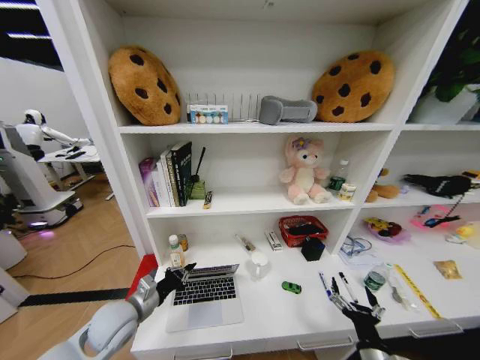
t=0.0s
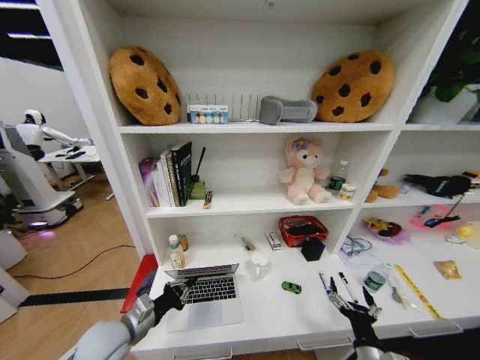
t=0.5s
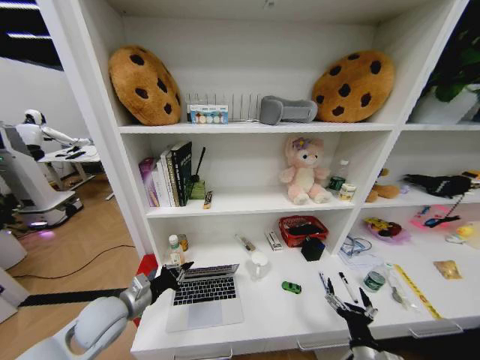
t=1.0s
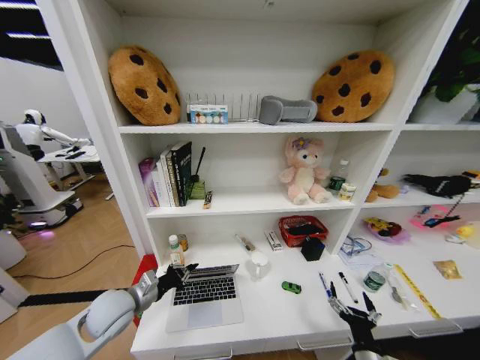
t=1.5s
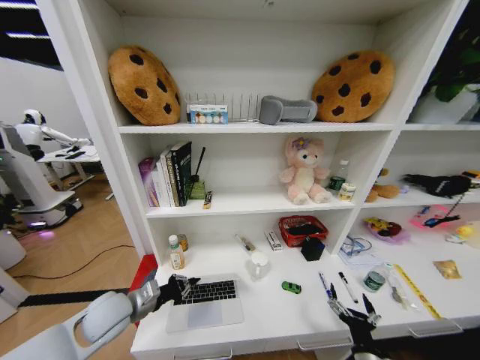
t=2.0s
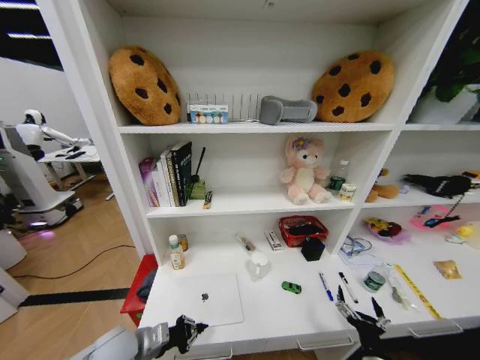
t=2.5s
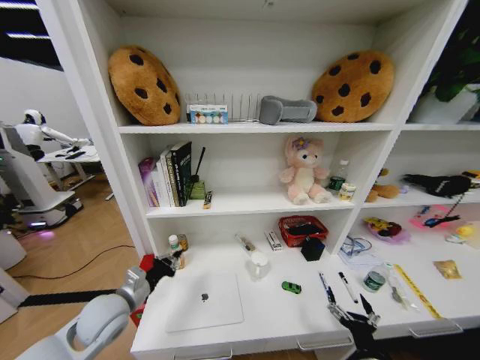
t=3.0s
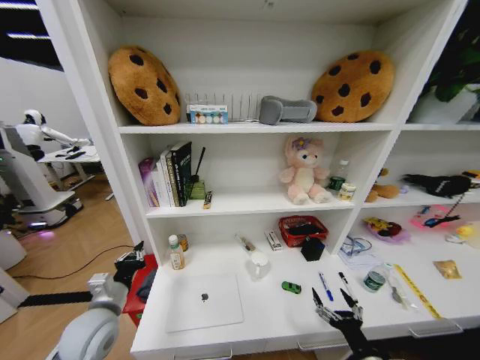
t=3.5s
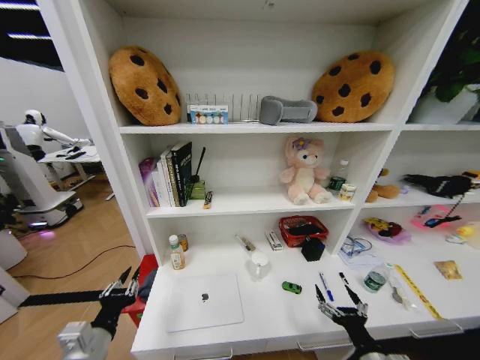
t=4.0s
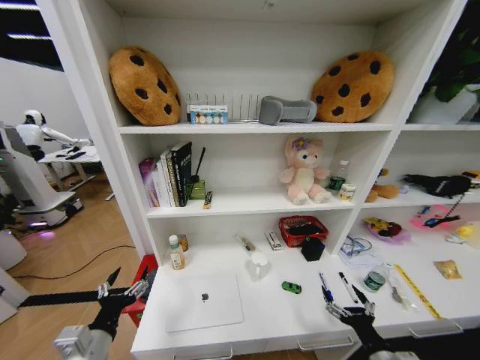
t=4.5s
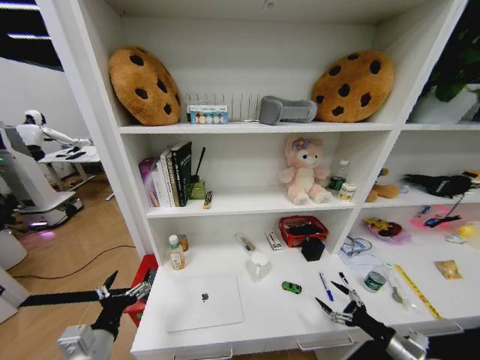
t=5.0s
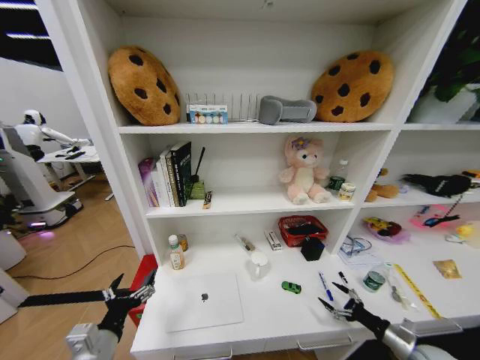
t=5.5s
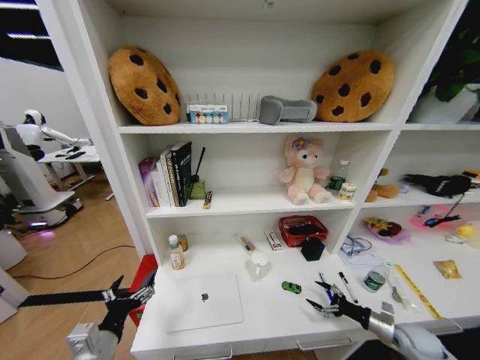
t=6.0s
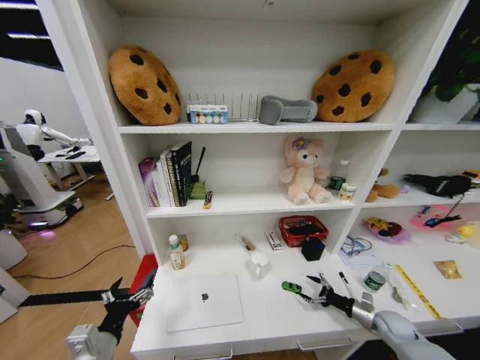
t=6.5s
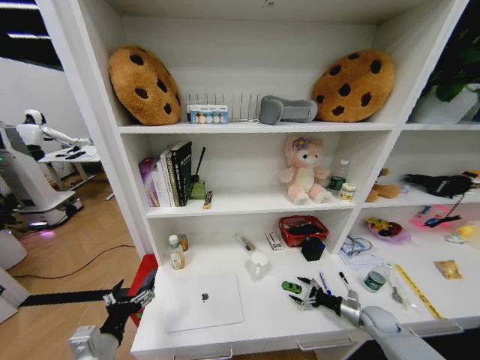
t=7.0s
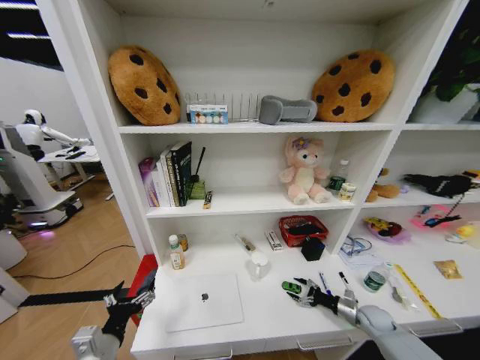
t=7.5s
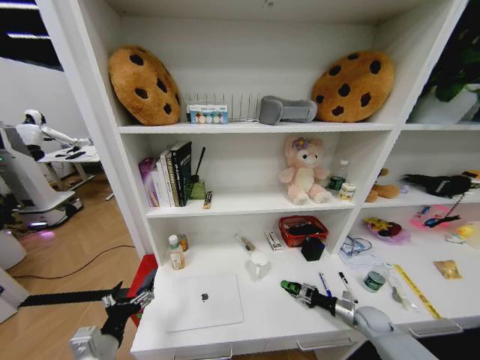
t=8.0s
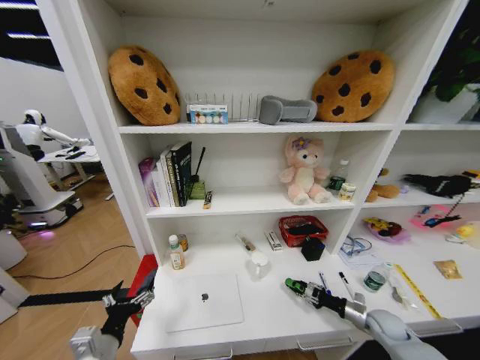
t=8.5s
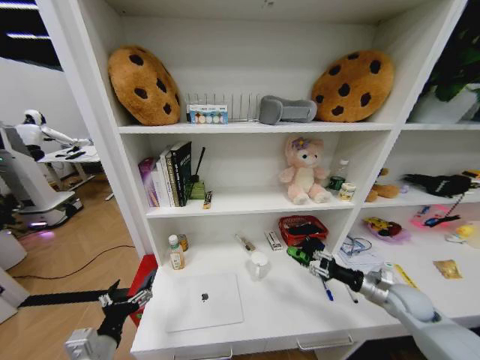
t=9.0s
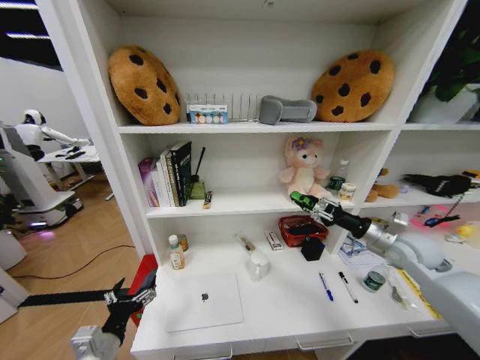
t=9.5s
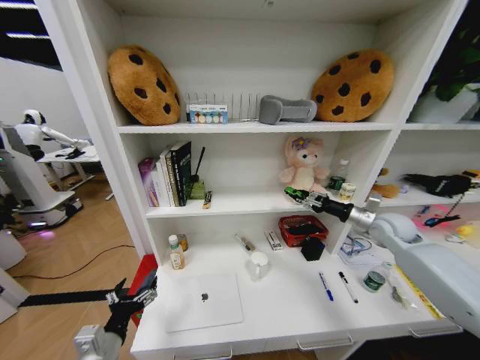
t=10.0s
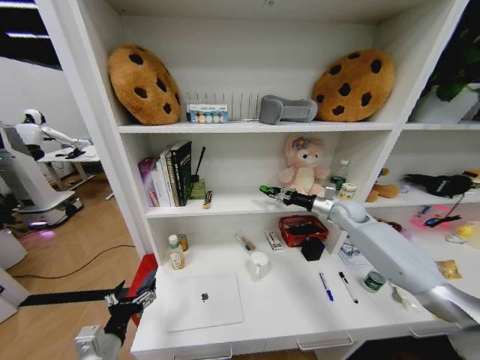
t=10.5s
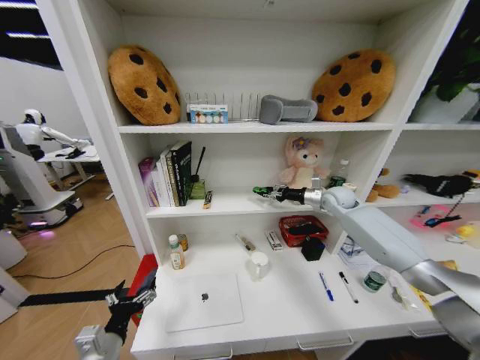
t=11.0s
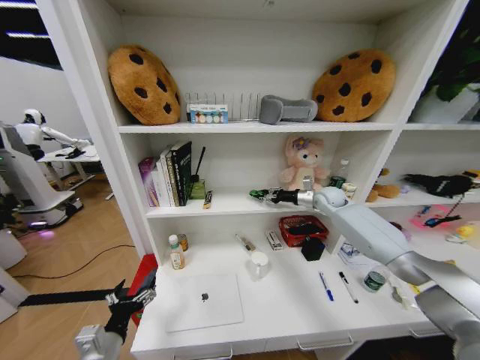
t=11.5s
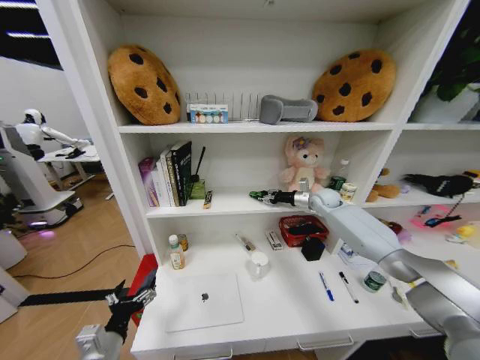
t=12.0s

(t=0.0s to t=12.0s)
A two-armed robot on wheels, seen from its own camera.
Task of the whole recording: Organize the objects on the table.
t=2.0s - t=4.0s: The left gripper moves forward and backward over approximately 10 cm, changing direction 2 times.
t=4.0s - t=6.0s: The right gripper heads to the right and forward, covering approximately 25 cm; the left gripper opens its fingers.
t=6.0s - t=8.0s: The right gripper travels forward, to the left and downward by about 10 cm, and closes.
t=8.0s - t=10.0s: The right gripper moves upward and forward, about 35 cm.
t=10.0s - t=12.0s: The right gripper is displaced forward and to the left by roughly 20 cm.

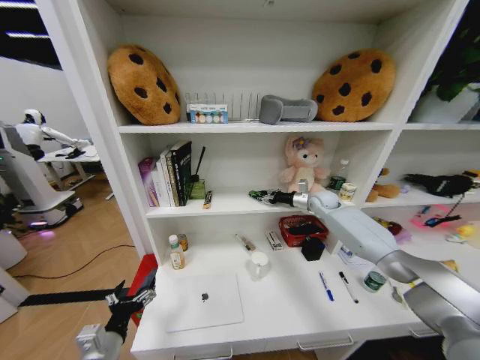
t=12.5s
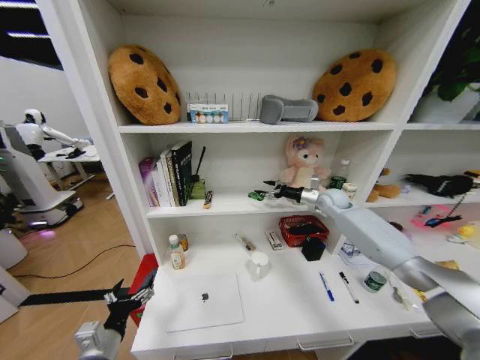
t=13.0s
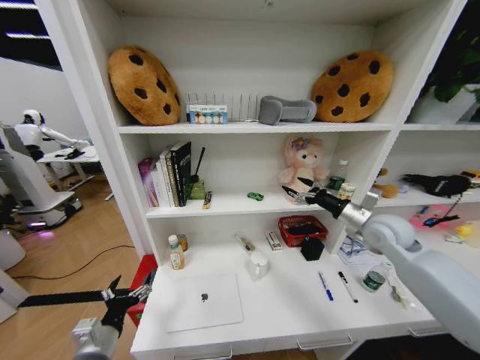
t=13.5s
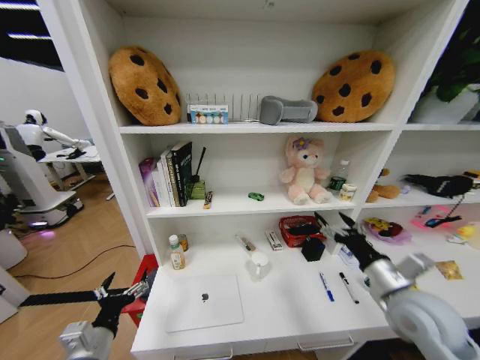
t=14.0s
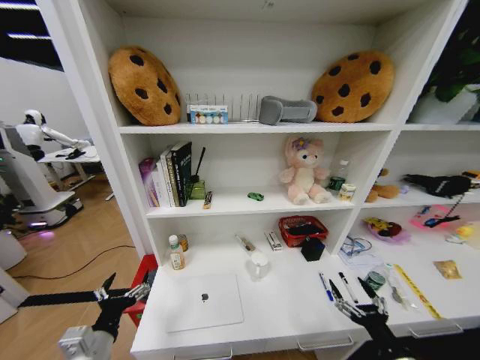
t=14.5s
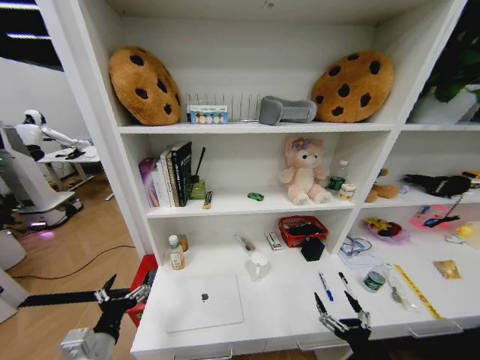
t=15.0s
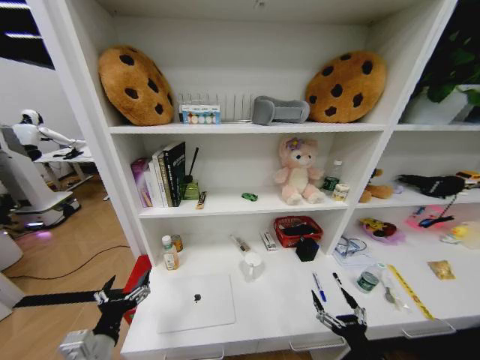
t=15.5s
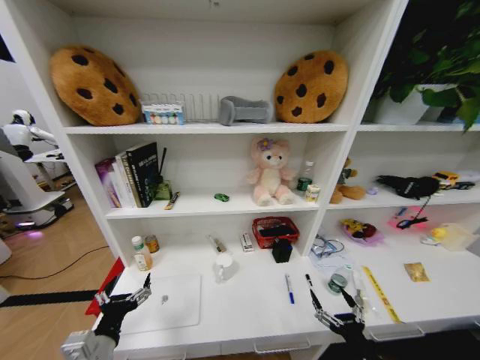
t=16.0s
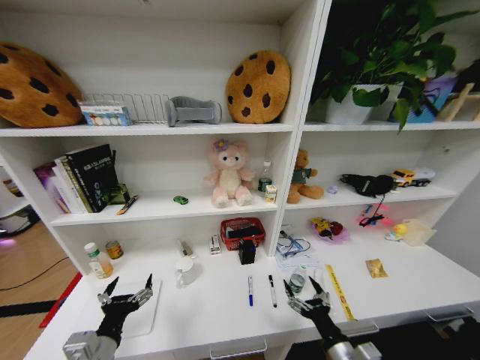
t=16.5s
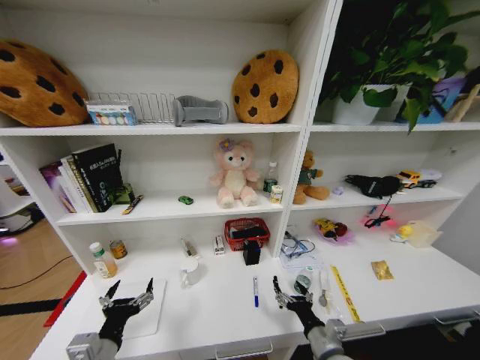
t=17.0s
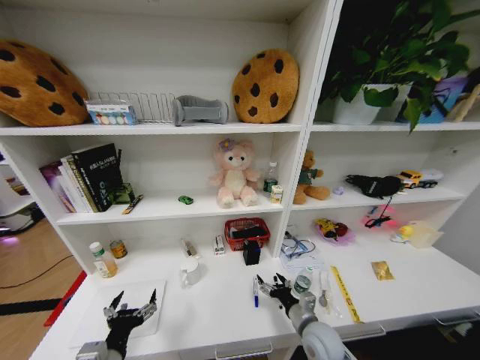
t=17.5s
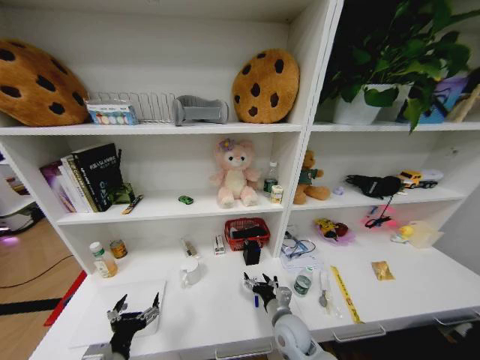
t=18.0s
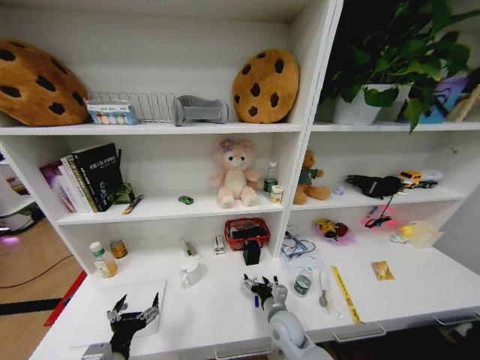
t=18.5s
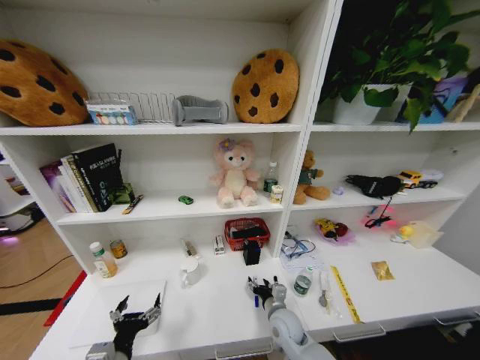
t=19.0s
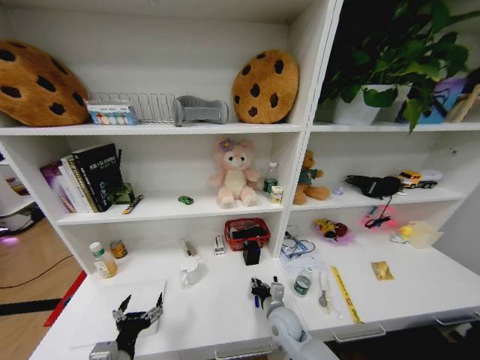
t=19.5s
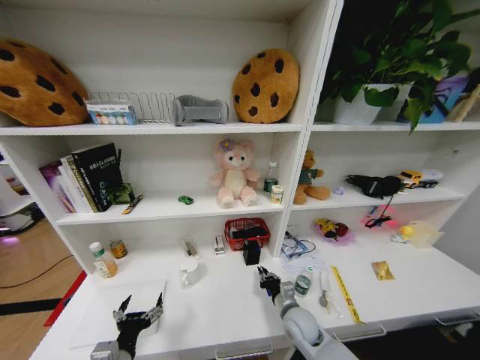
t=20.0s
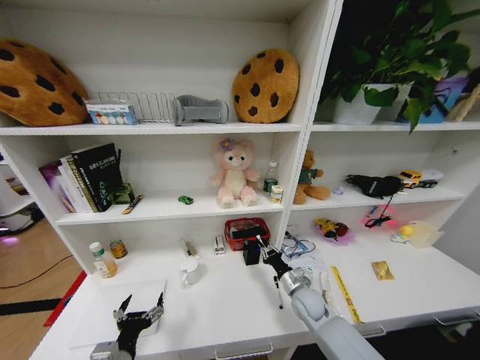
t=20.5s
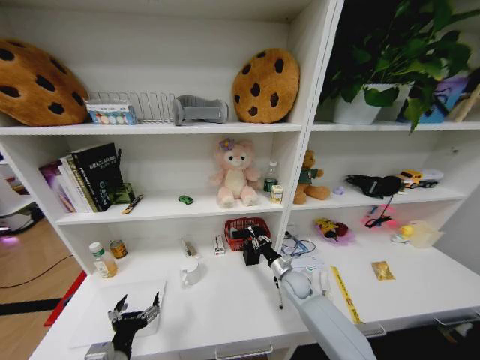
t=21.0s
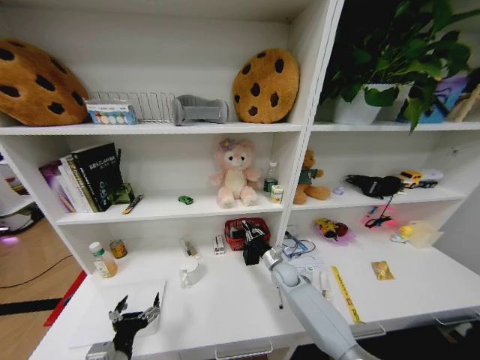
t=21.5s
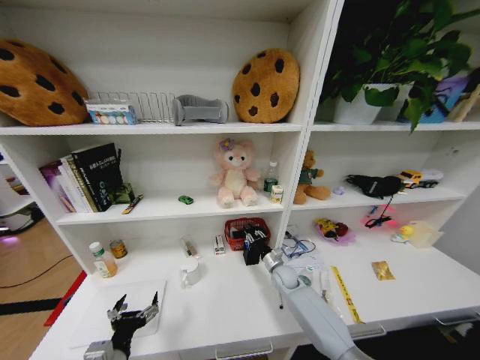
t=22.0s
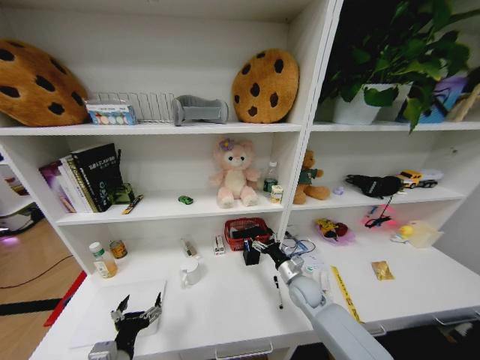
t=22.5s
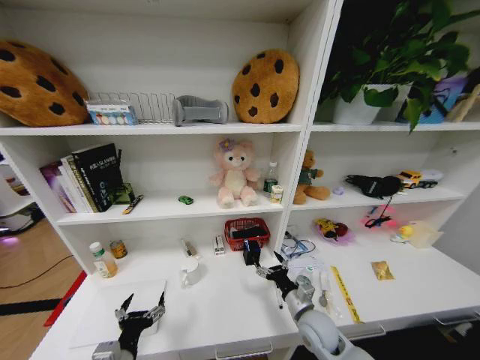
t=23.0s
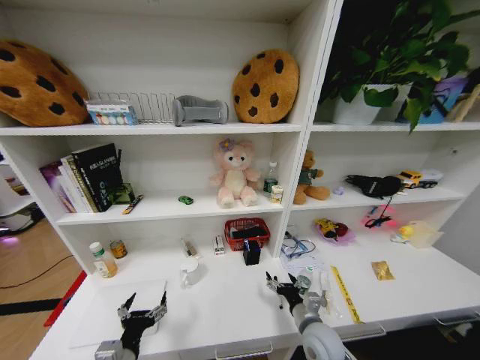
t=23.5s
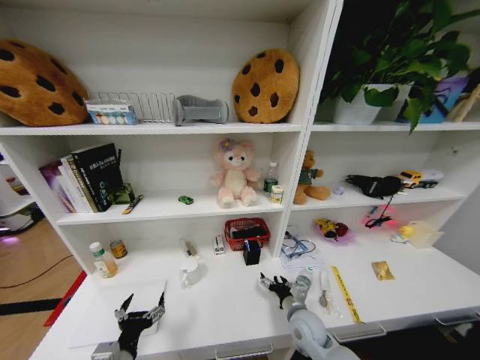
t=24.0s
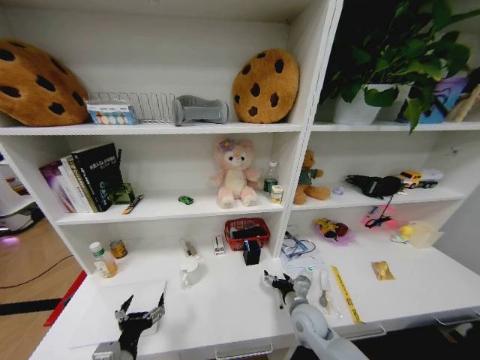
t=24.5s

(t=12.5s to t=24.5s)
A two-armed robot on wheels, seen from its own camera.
Task of the whole recording: Organize the objects on the table.
t=12.5s - t=14.5s: The right gripper moves backward, some 50 cm, and opens up.
t=14.5s - t=16.5s: The right gripper heads to the left, covering some 10 cm.
t=16.5s - t=18.5s: The right gripper goes some 20 cm forward, to the left and downward.
t=18.5s - t=20.5s: The right gripper moves to the right and forward, some 10 cm, and closes up.
t=20.5s - t=22.5s: The right gripper travels forward and back again, approximately 10 cm each way, and opens up.
t=22.5s - t=24.5s: The right gripper heads backward, covering approximately 10 cm.

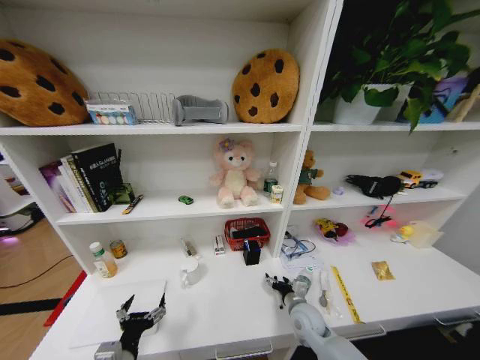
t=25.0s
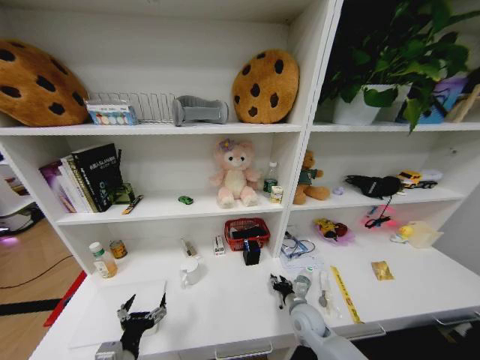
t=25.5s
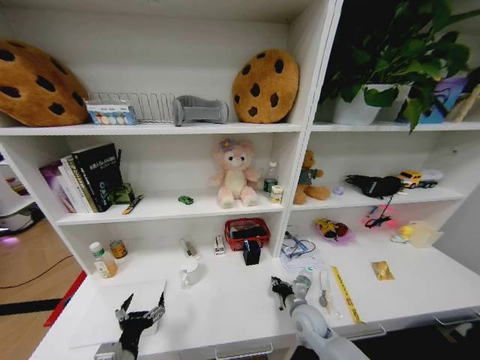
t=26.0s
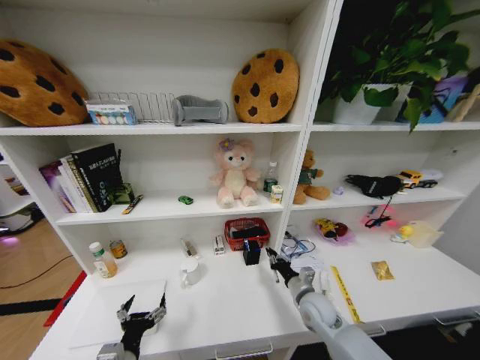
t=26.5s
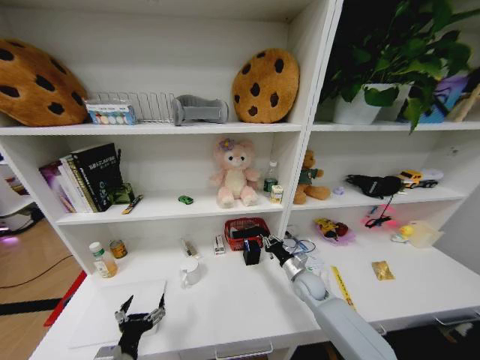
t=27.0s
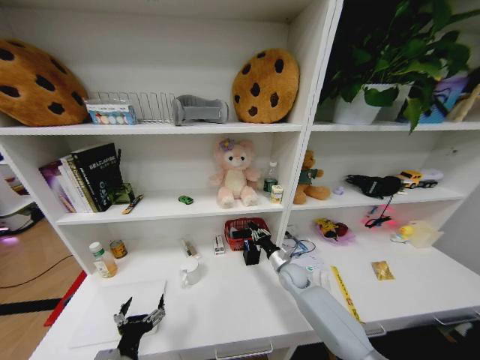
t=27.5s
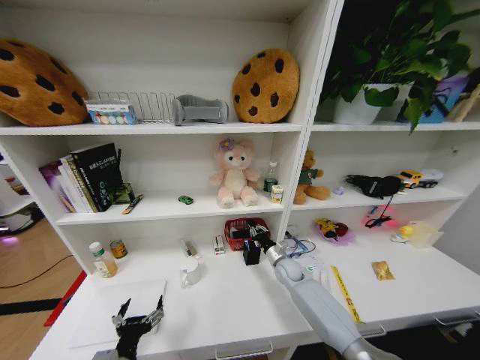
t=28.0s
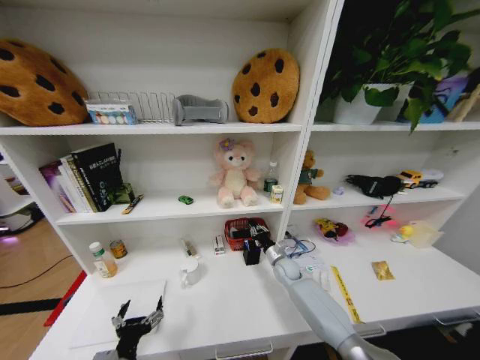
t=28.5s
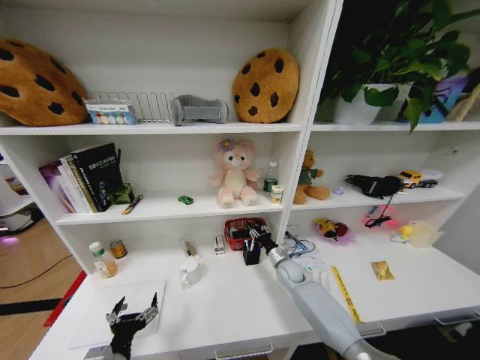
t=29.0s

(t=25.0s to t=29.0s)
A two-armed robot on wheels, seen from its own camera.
Task of the whole recording: Organize the objects on the table.
t=25.0s - t=27.0s: The right gripper is displaced forward by roughly 10 cm, and closes up.
t=27.0s - t=29.0s: The right gripper heads forward, covering approximately 5 cm.
